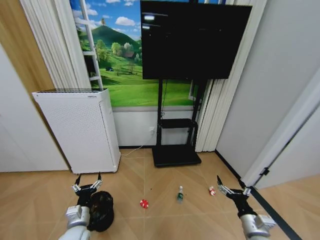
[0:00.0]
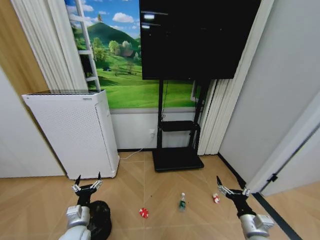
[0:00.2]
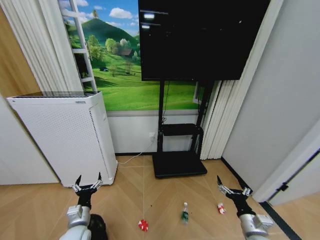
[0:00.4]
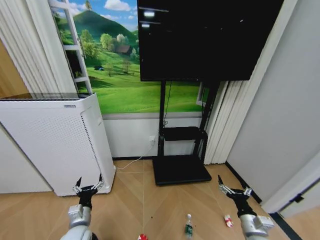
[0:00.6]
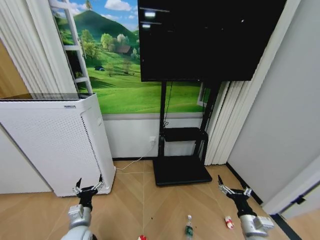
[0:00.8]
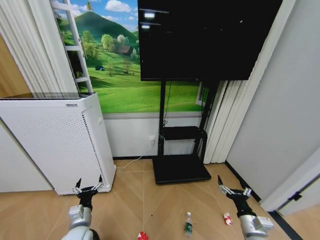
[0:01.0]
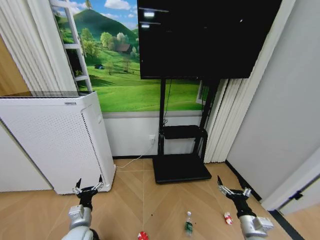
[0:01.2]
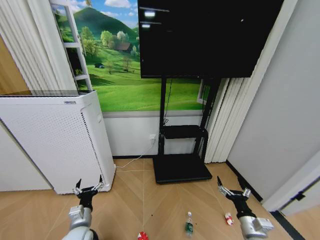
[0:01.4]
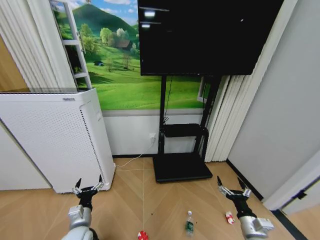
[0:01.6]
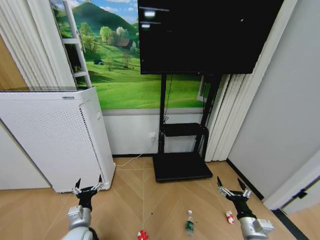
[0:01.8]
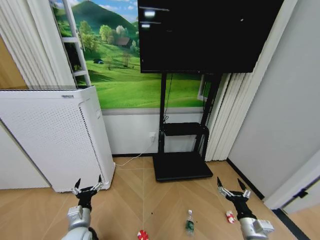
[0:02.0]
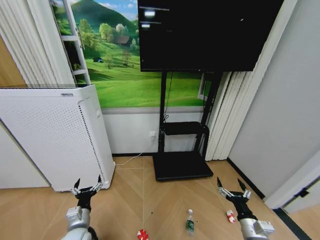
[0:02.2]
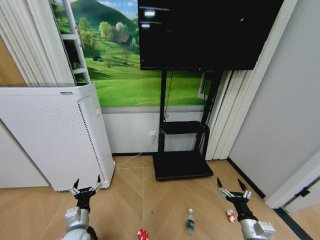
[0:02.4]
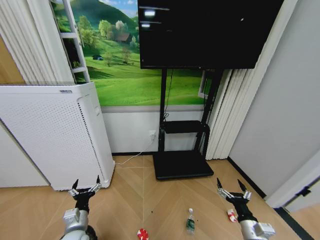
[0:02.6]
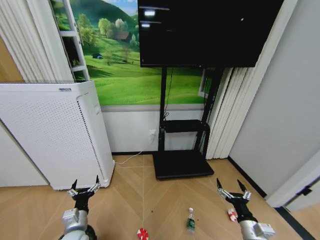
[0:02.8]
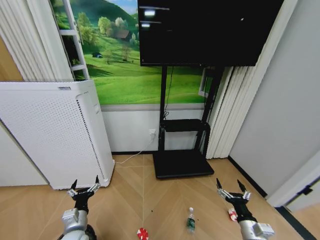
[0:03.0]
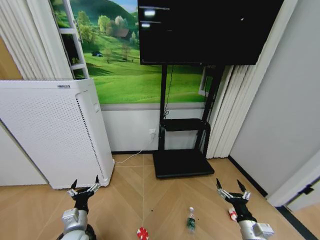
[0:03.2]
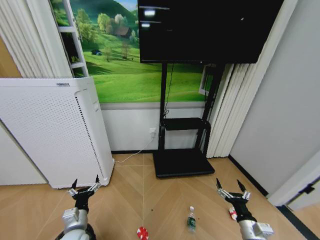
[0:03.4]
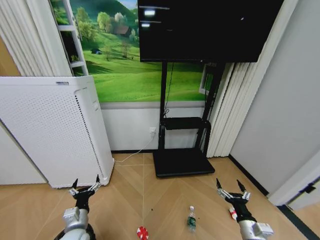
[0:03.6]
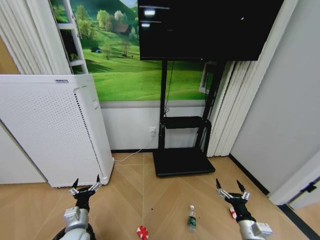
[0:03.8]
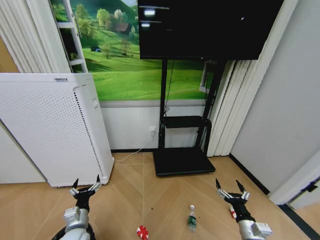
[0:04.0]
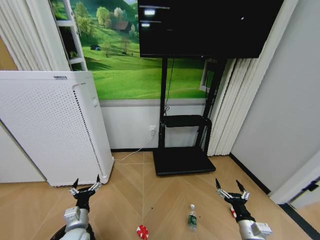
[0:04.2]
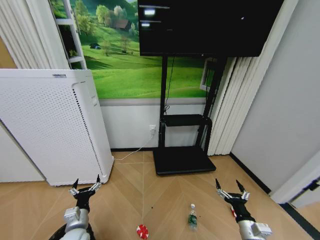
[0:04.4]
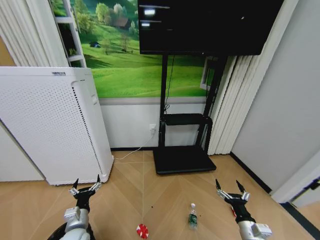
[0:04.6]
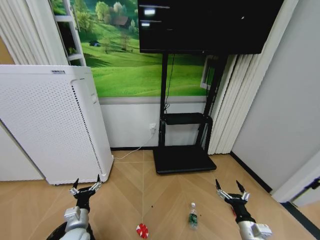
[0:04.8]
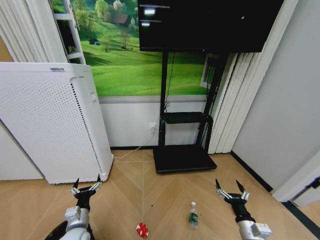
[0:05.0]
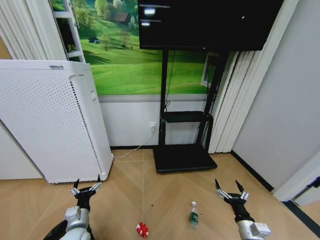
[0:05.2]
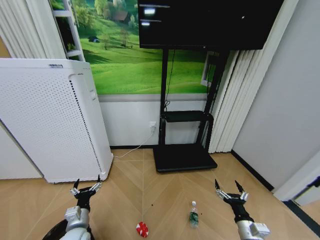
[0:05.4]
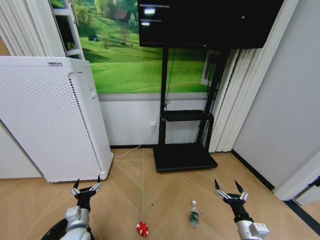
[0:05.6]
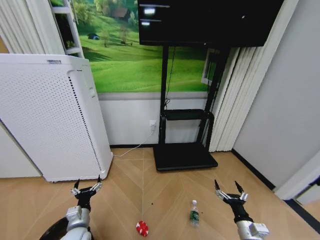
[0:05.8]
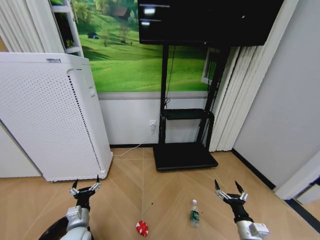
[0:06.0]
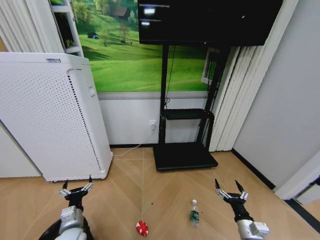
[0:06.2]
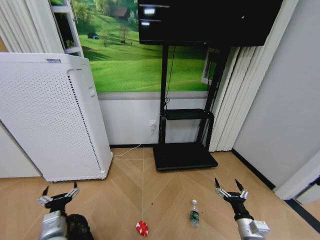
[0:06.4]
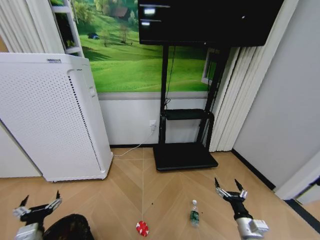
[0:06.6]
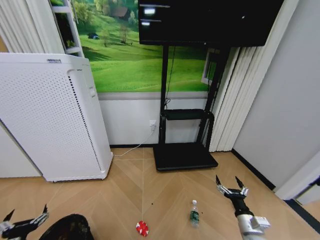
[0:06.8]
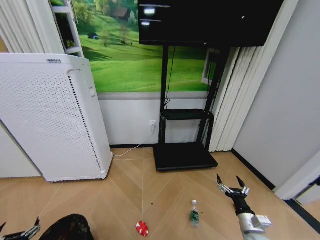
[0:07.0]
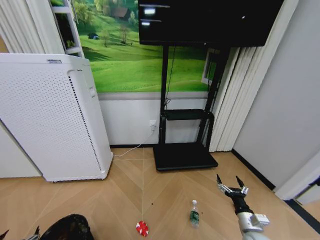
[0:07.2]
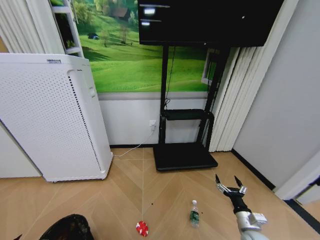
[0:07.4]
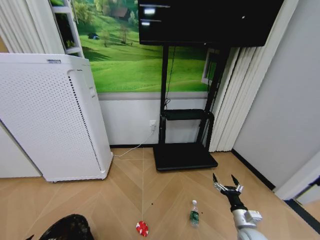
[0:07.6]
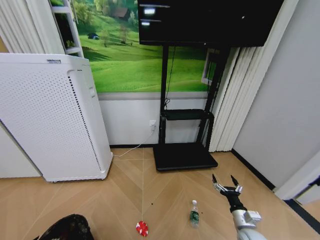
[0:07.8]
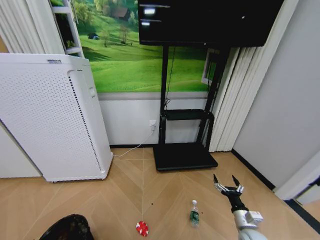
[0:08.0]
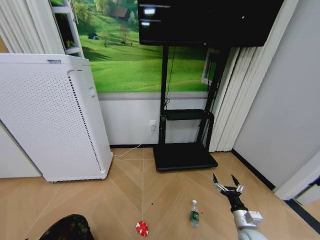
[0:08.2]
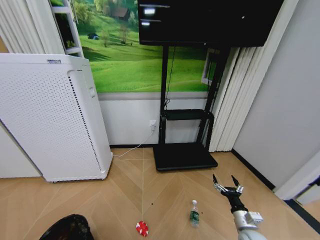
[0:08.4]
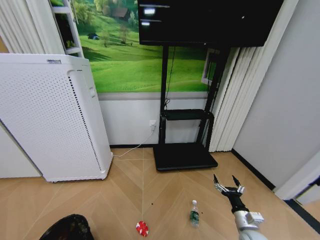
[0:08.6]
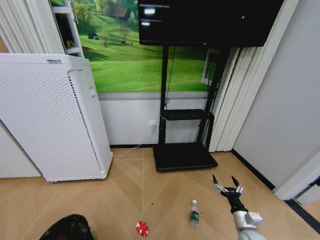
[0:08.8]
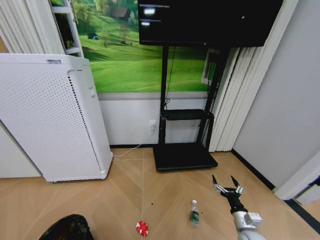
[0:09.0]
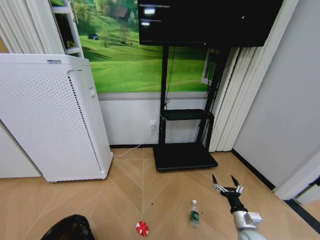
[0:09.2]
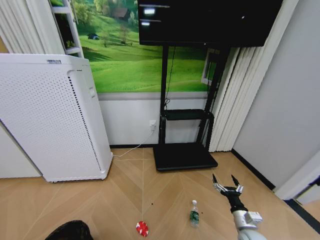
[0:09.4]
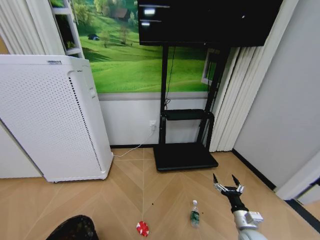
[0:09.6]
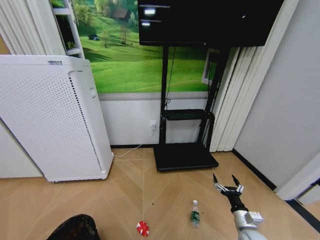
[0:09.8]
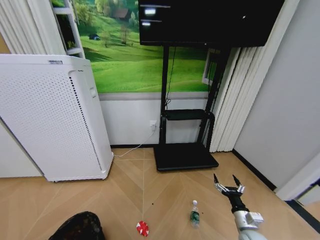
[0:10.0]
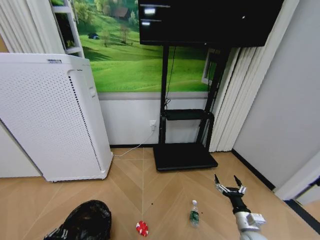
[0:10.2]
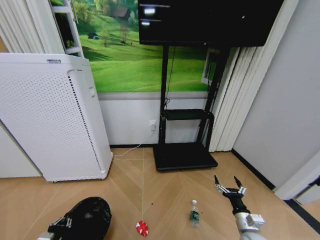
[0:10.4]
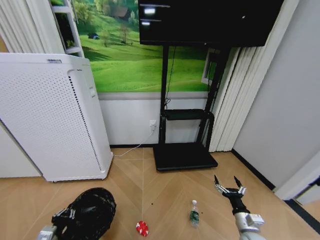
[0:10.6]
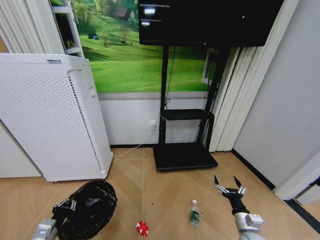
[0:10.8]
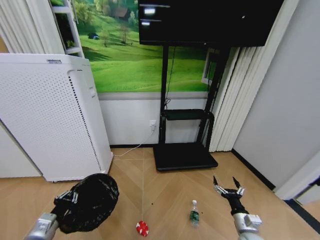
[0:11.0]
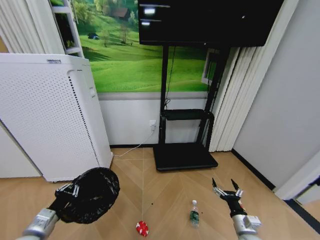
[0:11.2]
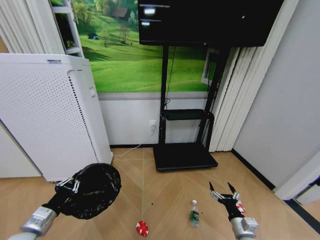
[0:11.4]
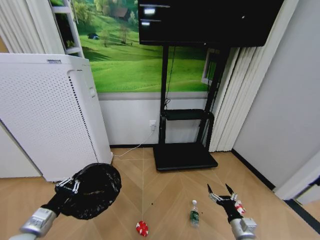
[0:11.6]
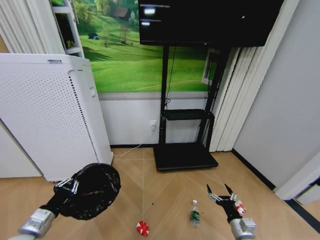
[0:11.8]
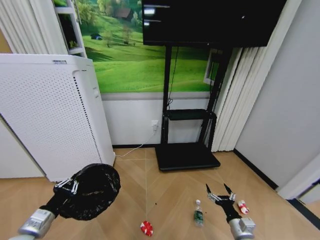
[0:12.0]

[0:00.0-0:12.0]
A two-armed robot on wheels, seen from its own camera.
Task of the whole recording: Pick up the trash bin and place the garbage on the floor into it.
0:01.6 to 0:03.0: The grippers move only a little.
0:03.0 to 0:04.4: Neither gripper changes place.
0:04.4 to 0:06.0: Neither gripper changes place.
0:06.0 to 0:07.6: The left gripper travels to the left and backward by approximately 25 cm.
0:07.6 to 0:09.0: The grippers make only small movements.
0:09.0 to 0:10.4: The left gripper moves to the right, about 5 cm, and closes up.
0:10.4 to 0:12.0: The left gripper goes approximately 10 cm upward.

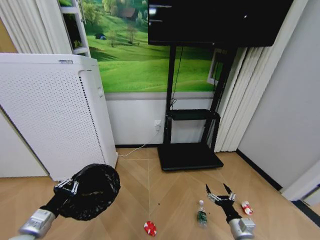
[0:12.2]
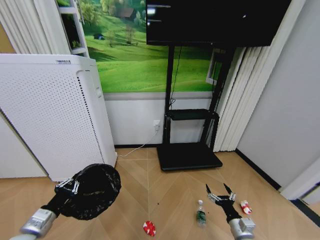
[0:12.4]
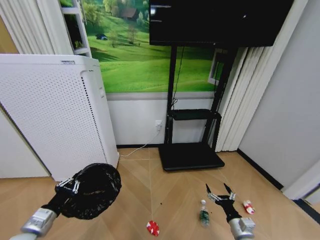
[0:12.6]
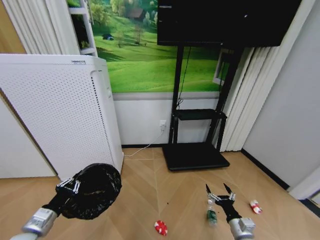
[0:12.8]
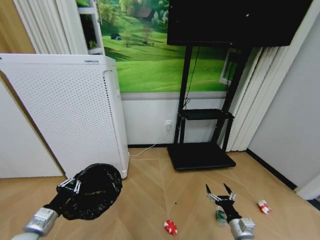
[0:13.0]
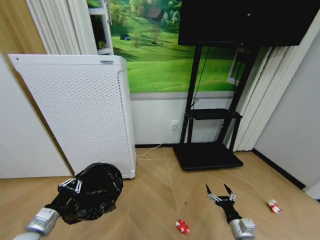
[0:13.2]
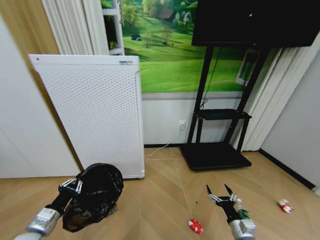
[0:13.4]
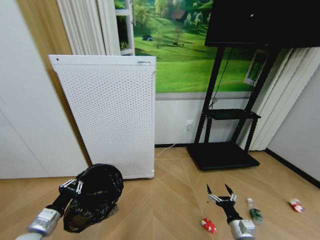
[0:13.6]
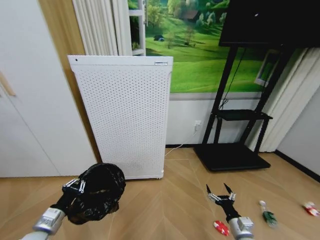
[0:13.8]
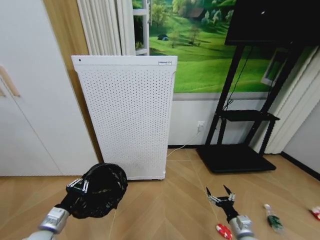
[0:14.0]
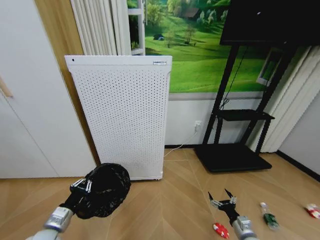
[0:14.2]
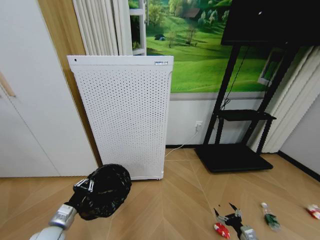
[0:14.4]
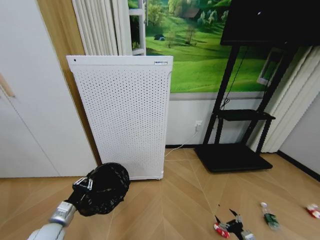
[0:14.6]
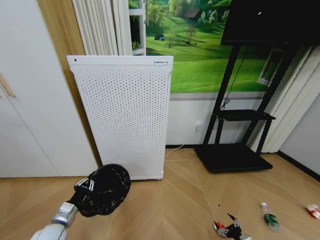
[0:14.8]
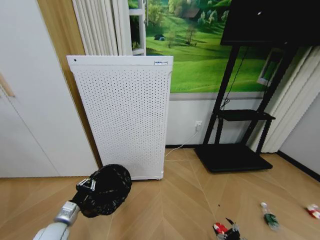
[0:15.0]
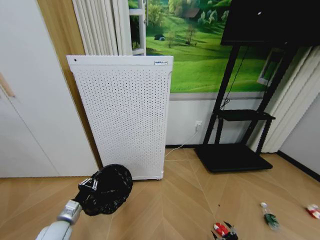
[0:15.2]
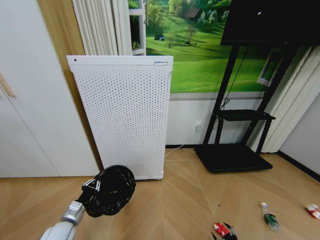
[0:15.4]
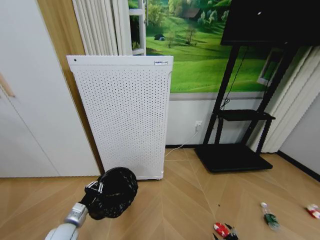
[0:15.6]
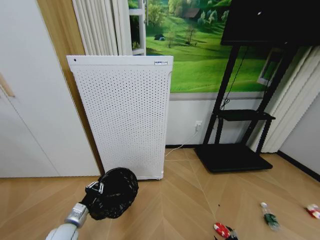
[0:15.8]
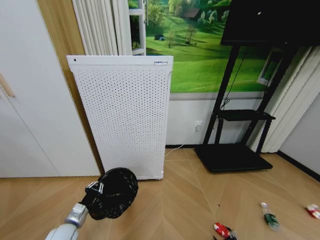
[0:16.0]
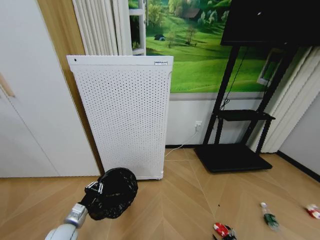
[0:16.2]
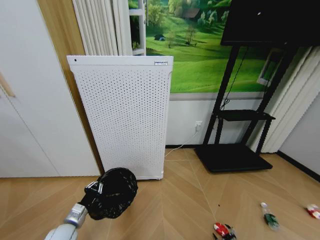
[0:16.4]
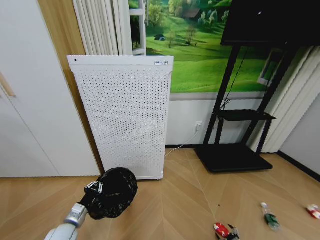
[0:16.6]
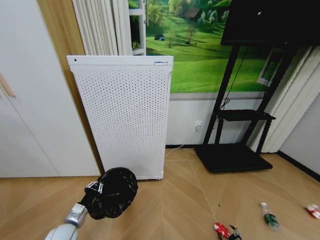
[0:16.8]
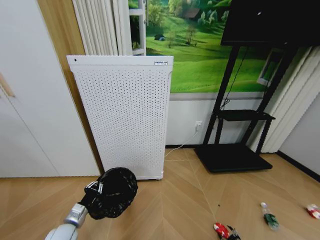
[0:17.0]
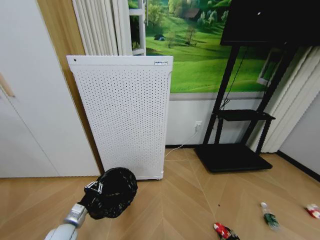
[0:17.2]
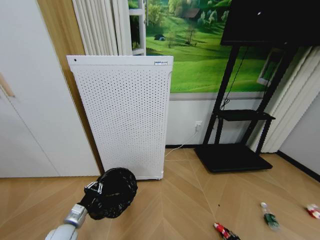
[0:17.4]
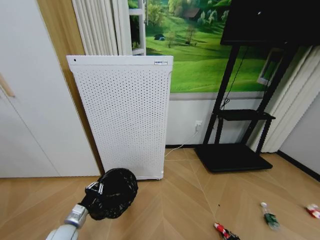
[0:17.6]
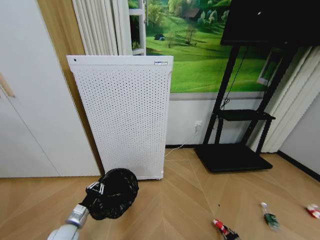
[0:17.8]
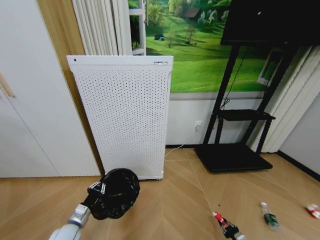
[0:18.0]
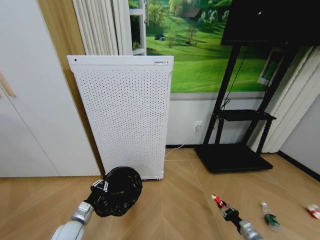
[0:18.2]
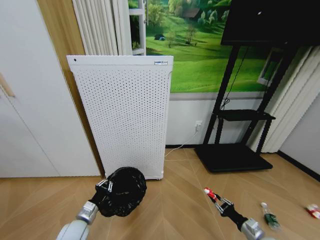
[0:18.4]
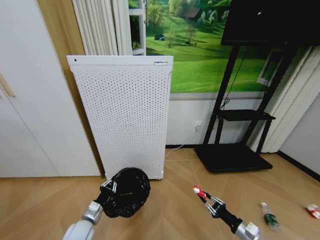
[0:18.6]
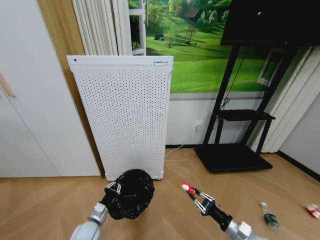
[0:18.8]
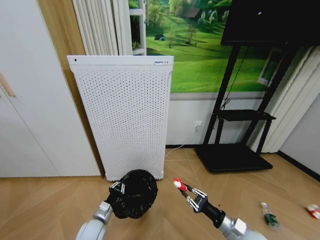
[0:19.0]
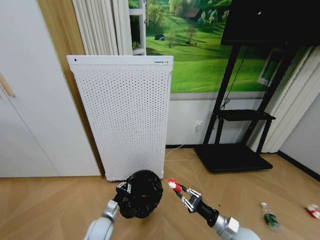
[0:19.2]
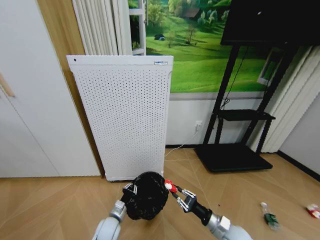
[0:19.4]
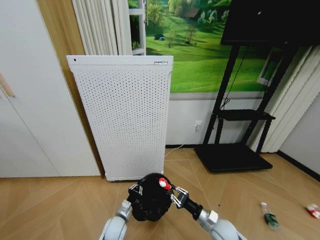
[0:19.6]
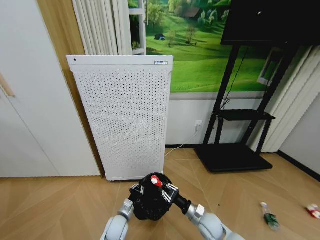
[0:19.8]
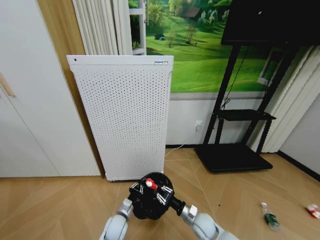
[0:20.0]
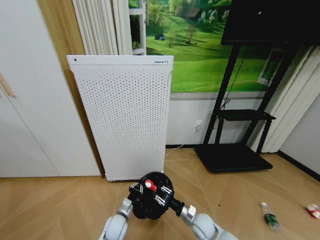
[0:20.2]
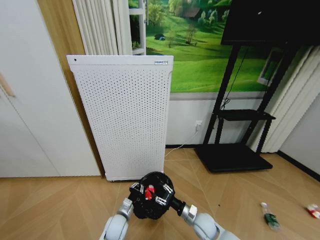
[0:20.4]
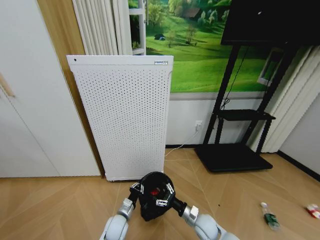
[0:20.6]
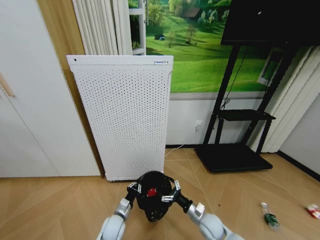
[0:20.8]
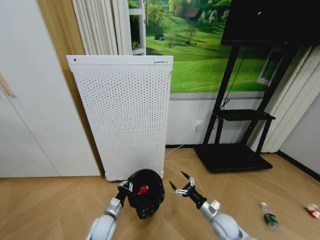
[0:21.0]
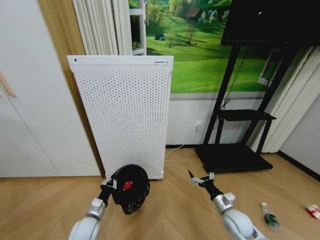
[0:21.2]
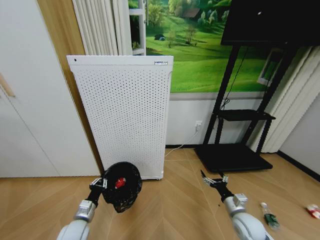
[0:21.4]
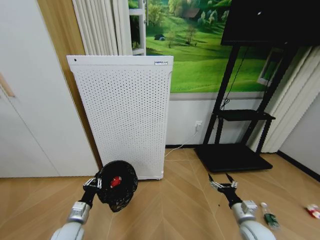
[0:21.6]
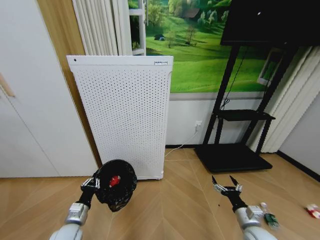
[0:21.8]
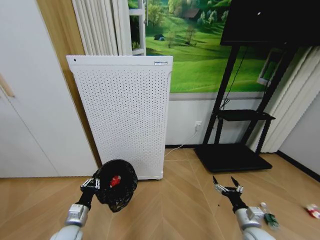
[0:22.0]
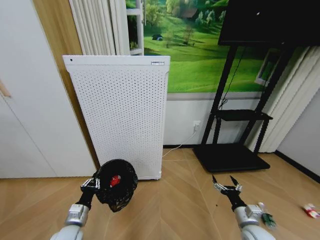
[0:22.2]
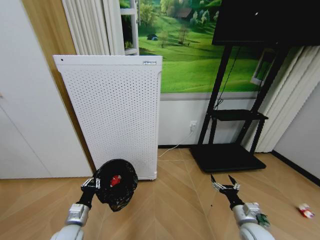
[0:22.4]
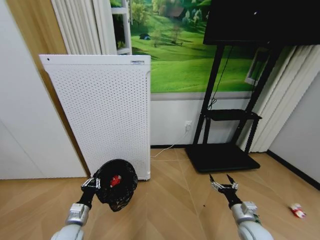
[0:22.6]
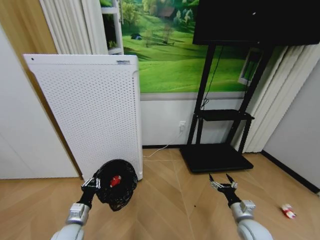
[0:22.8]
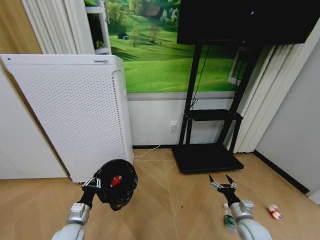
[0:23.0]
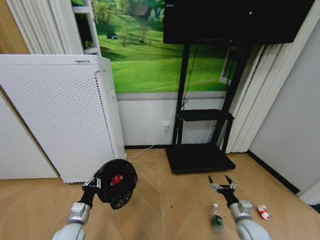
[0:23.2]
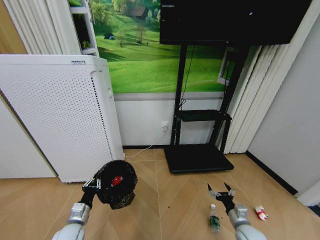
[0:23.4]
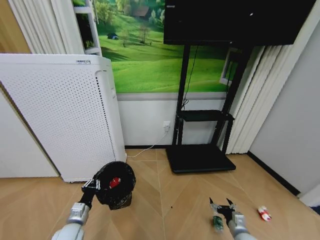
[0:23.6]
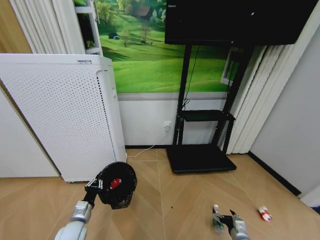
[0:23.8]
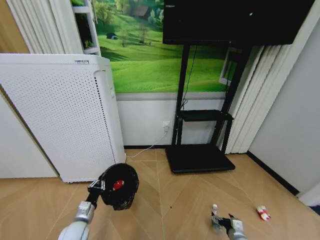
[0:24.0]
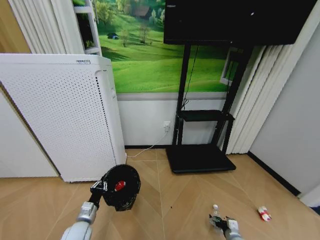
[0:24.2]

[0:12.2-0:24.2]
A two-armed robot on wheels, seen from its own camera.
Task of the whole recording: Pick up the trash bin and place the garbage on the floor into it.
0:13.8 to 0:15.2: The left gripper moves downward, about 5 cm, while the right gripper is displaced downward, to the right and backward by about 15 cm.
0:15.2 to 0:16.6: The right gripper is displaced downward by roughly 5 cm.
0:16.6 to 0:18.2: The right gripper is displaced upward by approximately 10 cm, and closes up.
0:18.2 to 0:19.8: The right gripper shifts approximately 20 cm to the left, while the left gripper shifts about 20 cm to the right and downward.
0:19.8 to 0:21.2: The right gripper shifts some 10 cm to the right, and opens up. Meanwhile the left gripper goes some 10 cm to the left.
0:21.2 to 0:22.6: The right gripper travels to the right by approximately 5 cm. Meanwhile the left gripper goes approximately 5 cm to the left.
0:22.6 to 0:24.2: The right gripper travels downward by some 15 cm.
